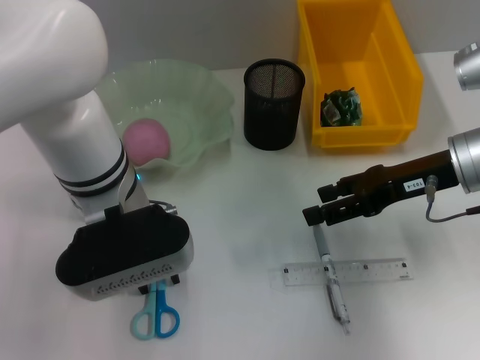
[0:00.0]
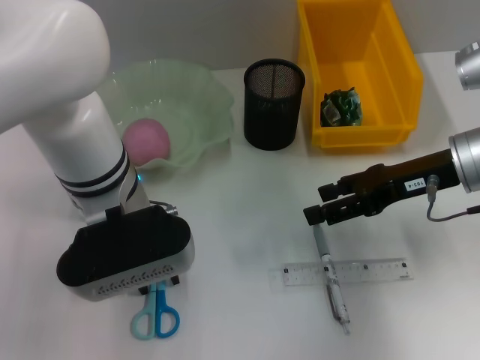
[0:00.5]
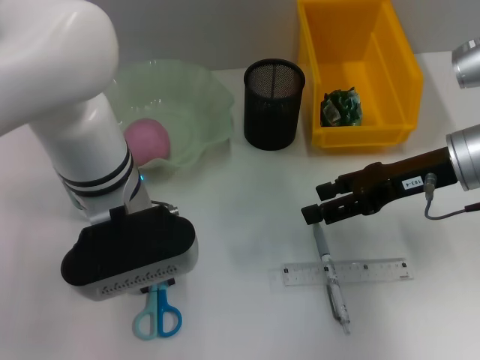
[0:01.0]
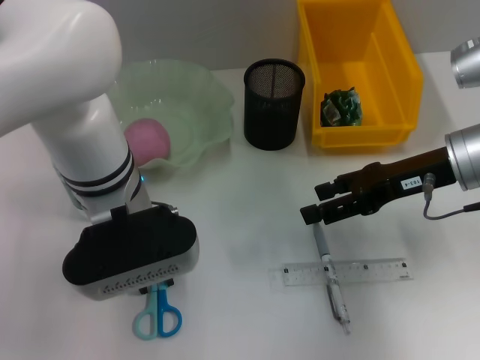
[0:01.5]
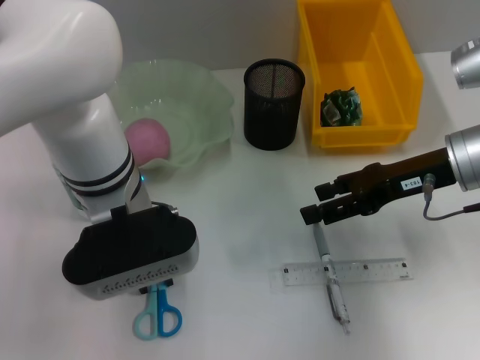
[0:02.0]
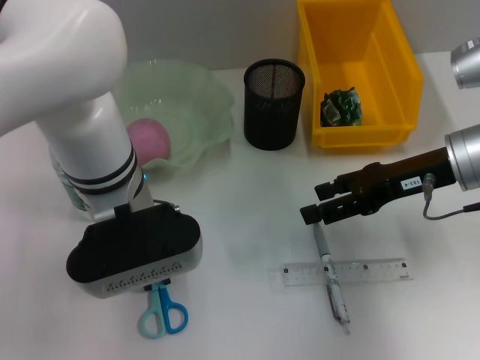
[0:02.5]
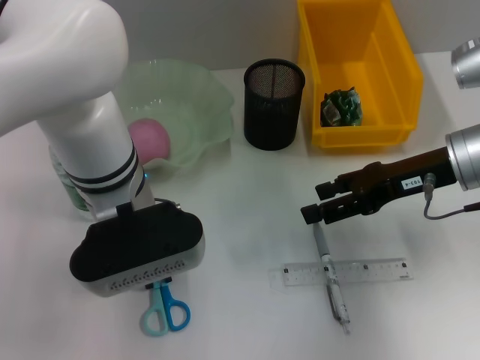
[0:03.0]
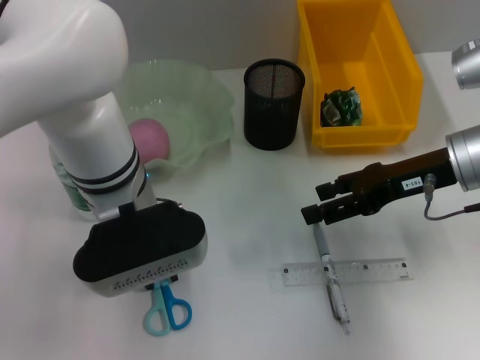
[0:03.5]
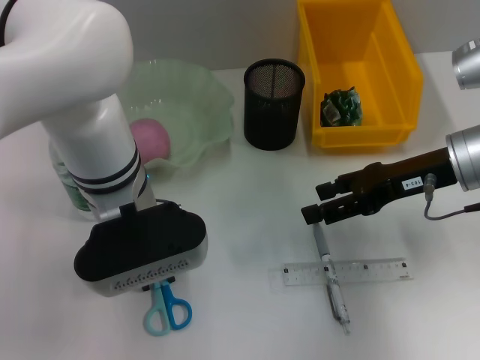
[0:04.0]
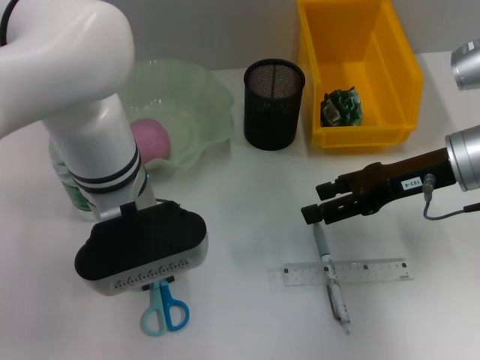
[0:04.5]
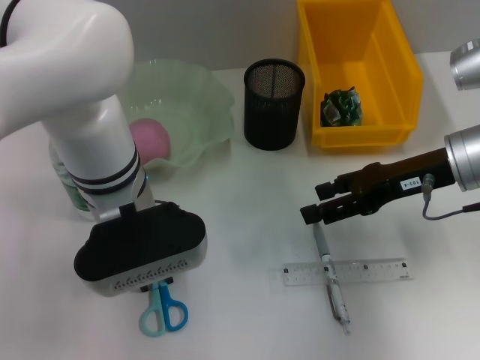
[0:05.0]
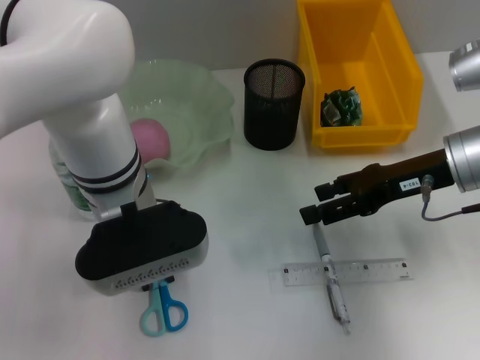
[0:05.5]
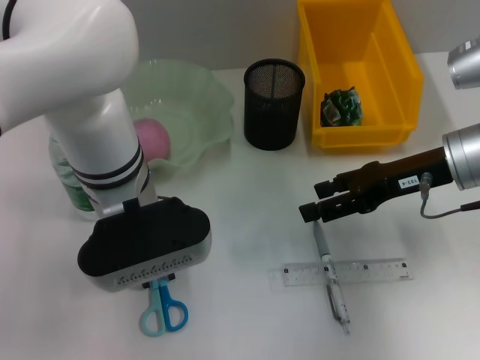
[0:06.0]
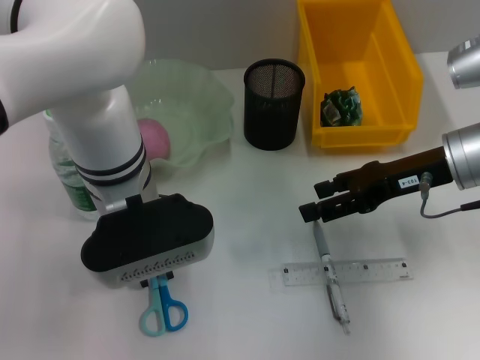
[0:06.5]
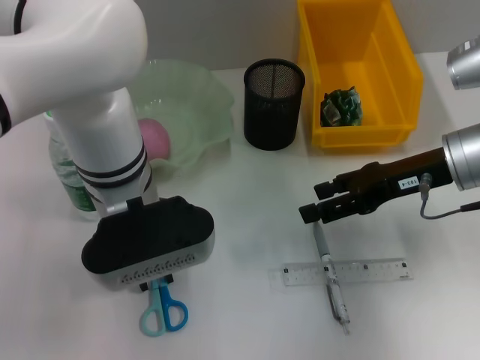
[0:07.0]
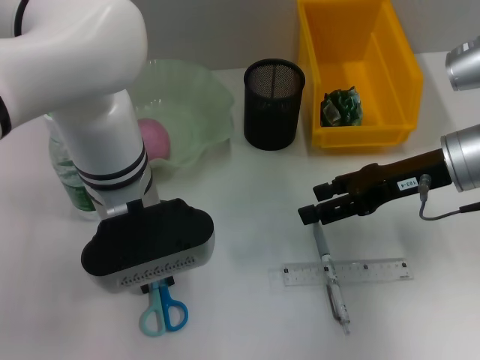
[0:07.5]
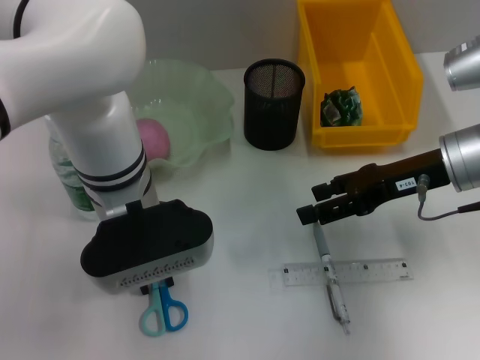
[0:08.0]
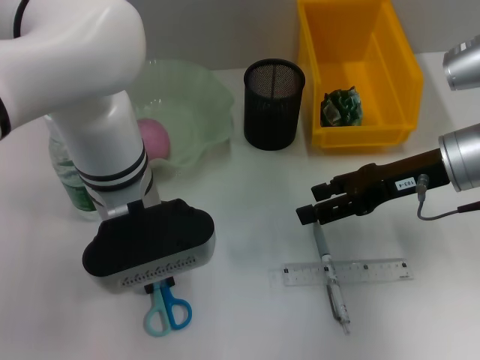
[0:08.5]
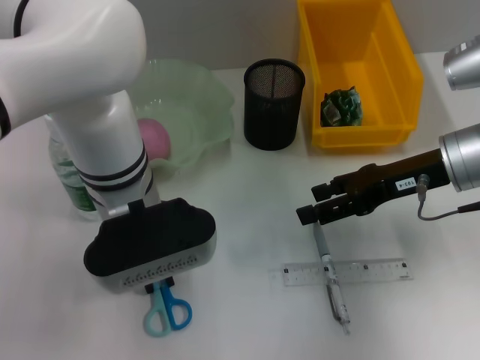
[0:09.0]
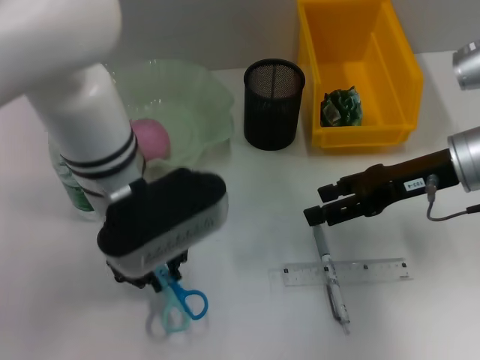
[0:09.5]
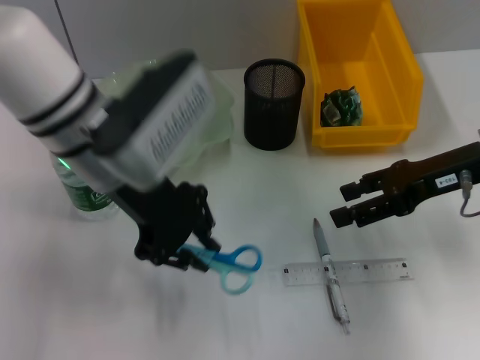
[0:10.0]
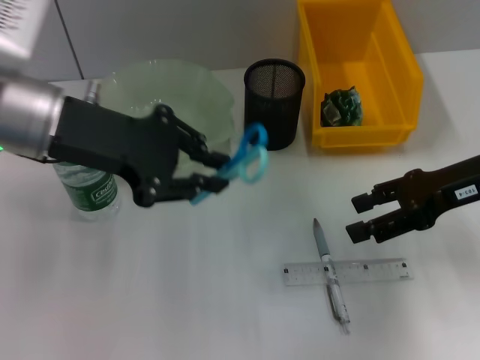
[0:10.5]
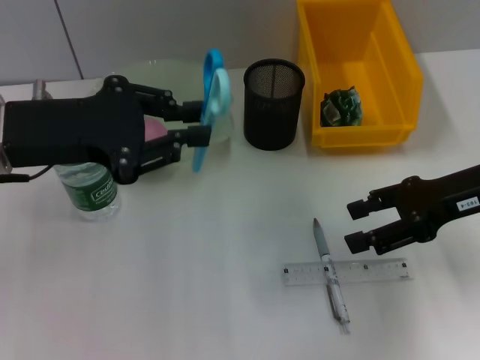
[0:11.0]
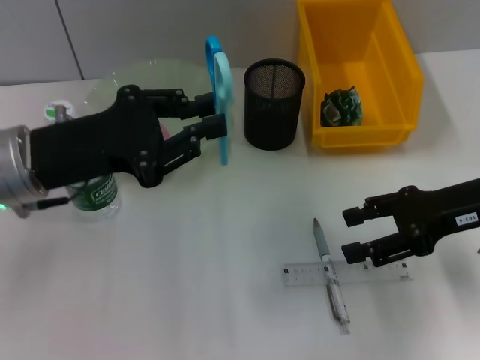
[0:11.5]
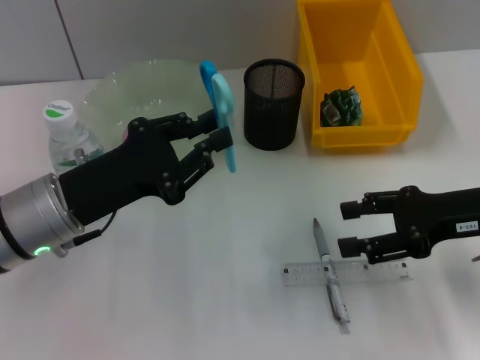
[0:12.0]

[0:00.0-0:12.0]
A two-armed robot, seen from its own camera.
Step, 0:00.0 to 0:08.5: Grab the blue scissors with the left hand.
0:00.0 to 0:06.0: The two grippers keep their place.
0:06.0 to 0:08.0: The two grippers keep their place.
0:08.0 to 0:10.0: The left gripper moves upward, roughly 5 cm.
0:10.0 to 0:12.0: The left gripper shifts roughly 15 cm downward, to the left and backward; the right gripper changes place by approximately 5 cm.

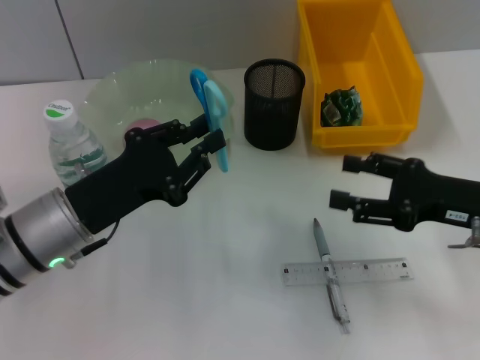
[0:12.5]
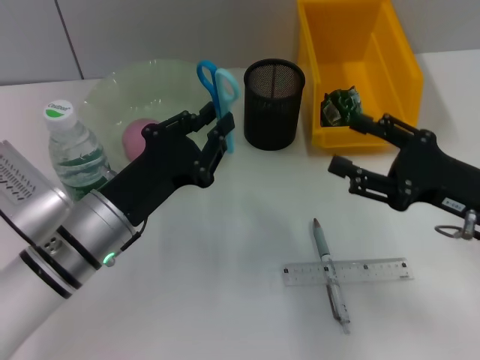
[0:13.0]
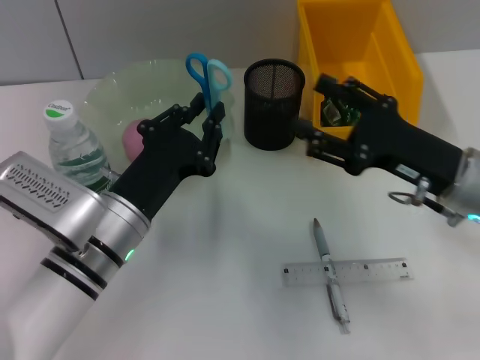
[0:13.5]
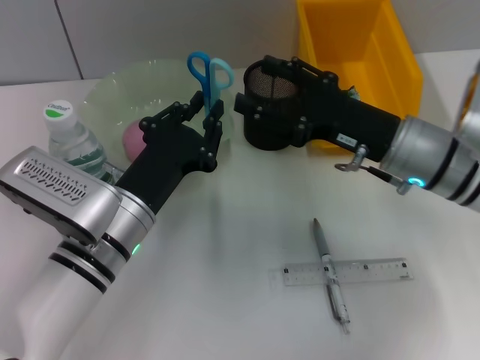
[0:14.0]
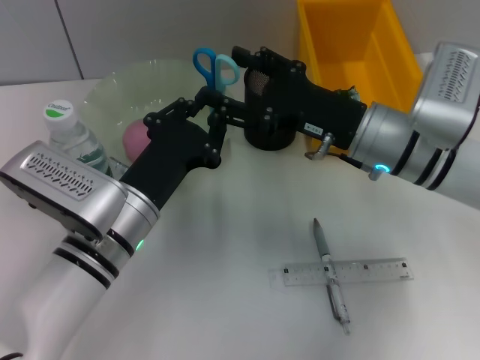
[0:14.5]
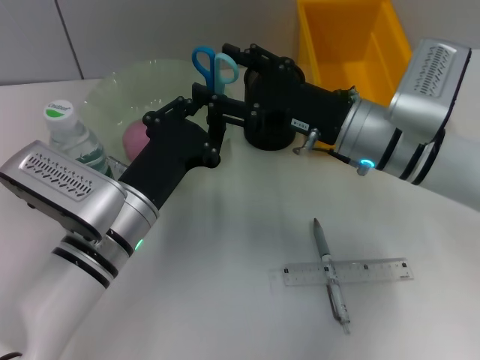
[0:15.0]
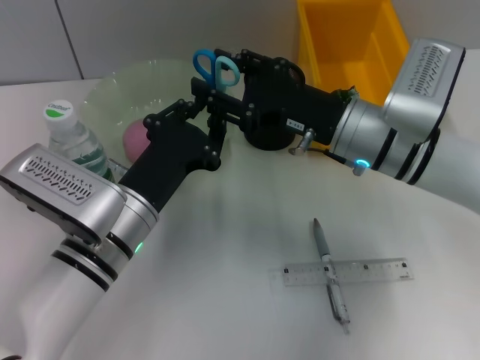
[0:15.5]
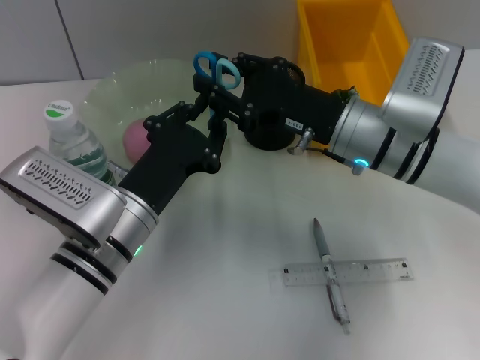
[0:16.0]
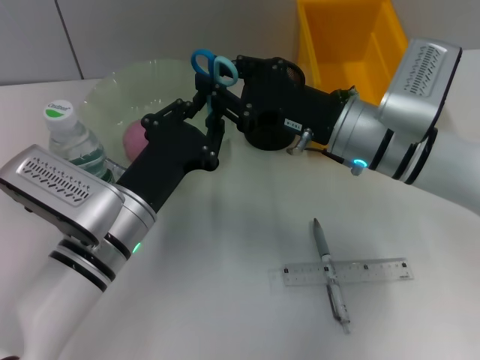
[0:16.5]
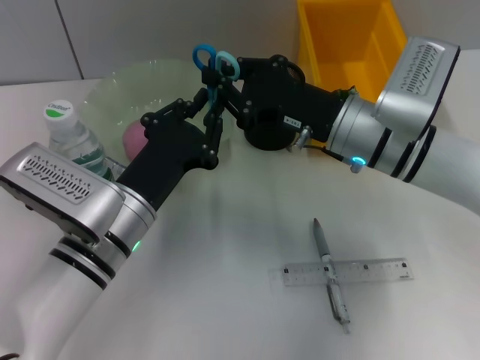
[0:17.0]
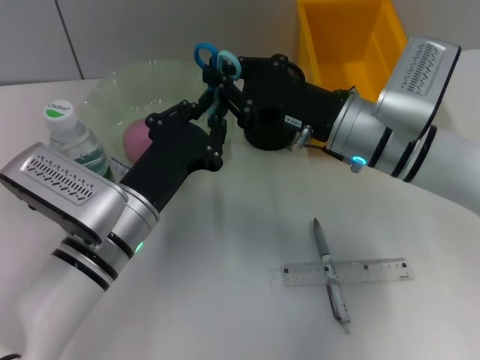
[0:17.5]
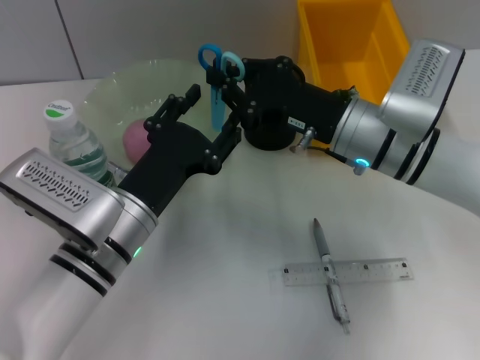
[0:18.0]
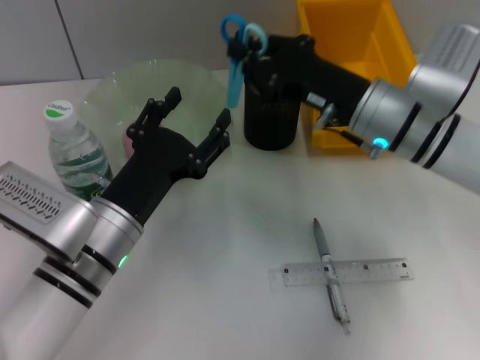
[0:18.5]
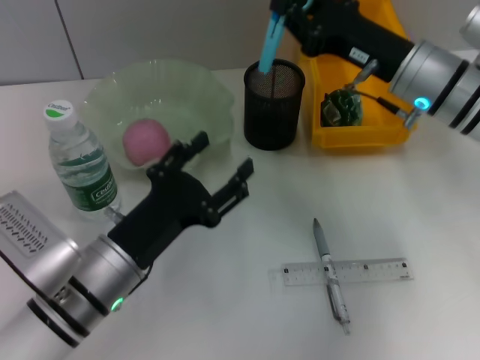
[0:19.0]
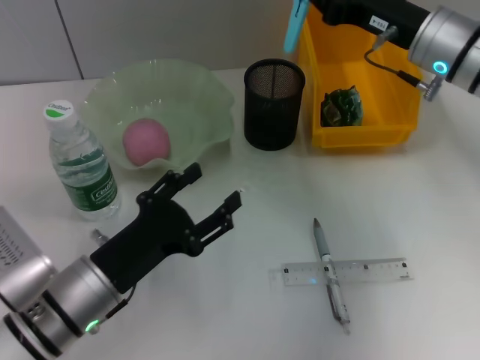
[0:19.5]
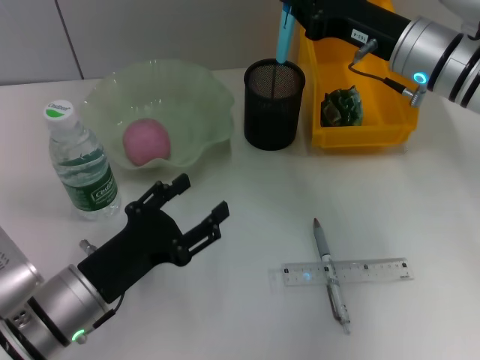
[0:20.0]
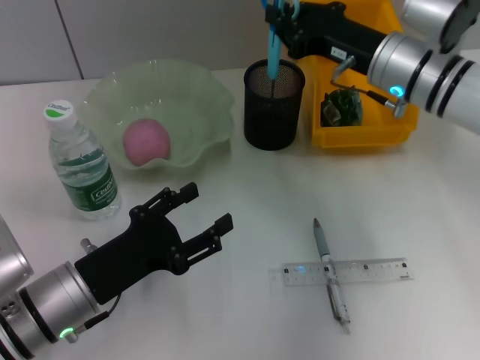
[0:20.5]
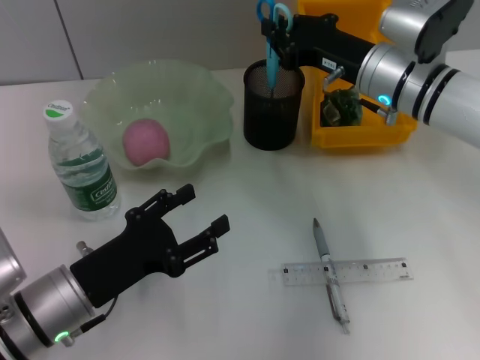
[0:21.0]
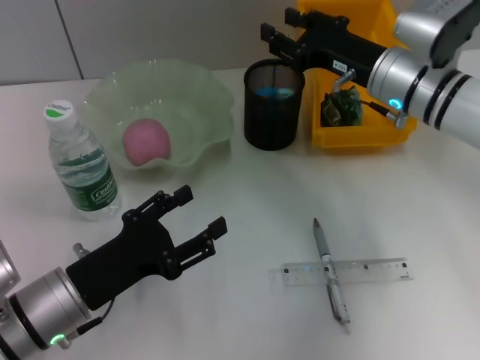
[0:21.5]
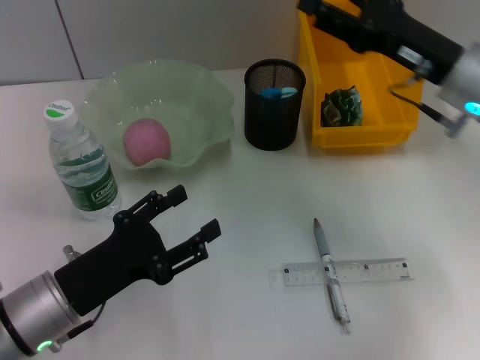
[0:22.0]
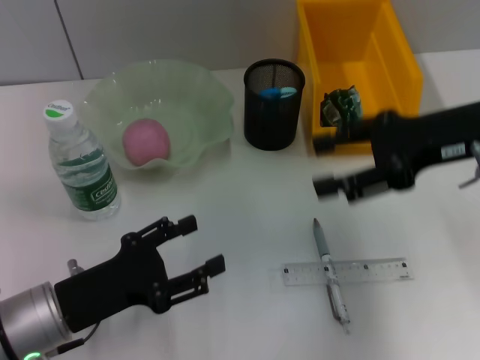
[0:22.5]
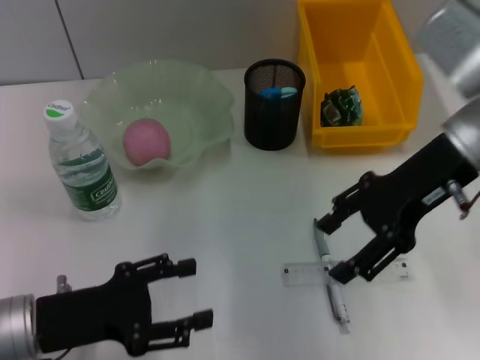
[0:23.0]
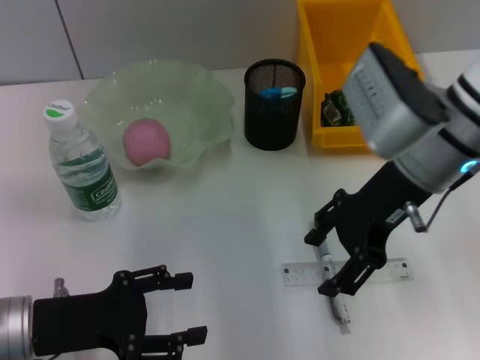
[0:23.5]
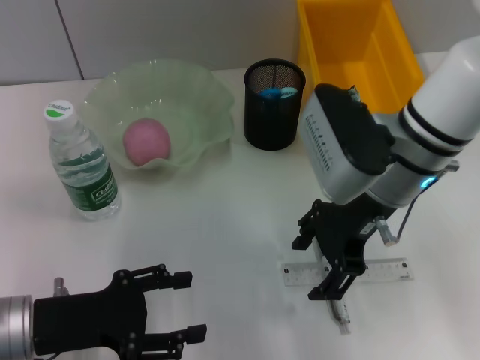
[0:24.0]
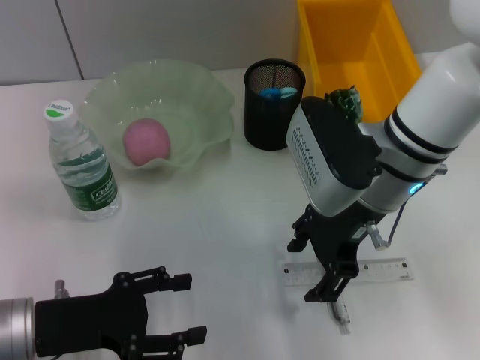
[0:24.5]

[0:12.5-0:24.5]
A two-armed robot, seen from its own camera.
Step, 0:12.5 to 0:17.5: Pass the blue scissors from the left hand to the right hand.
Step, 0:18.0 to 0:22.0: Place the blue scissors into the pen holder with the right hand.
0:12.5 to 0:14.5: The right gripper heads to the left and forward, covering about 15 cm, while the left gripper shifts roughly 5 cm to the right.
0:14.5 to 0:16.5: The right gripper closes its fingers.
0:16.5 to 0:18.5: The right gripper closes; the left gripper opens up.
0:18.5 to 0:20.5: The right gripper ends up roughly 5 cm from where it was. Meanwhile the left gripper heads to the left, covering about 5 cm.
0:20.5 to 0:22.5: The right gripper travels backward, to the right and upward by approximately 10 cm, and opens its fingers.
0:22.5 to 0:24.5: The right gripper travels to the left by roughly 15 cm.

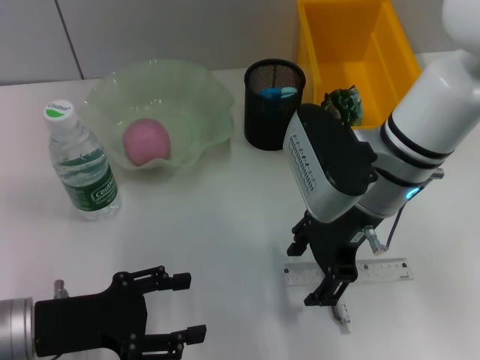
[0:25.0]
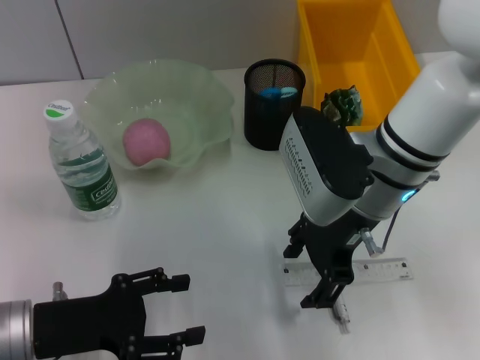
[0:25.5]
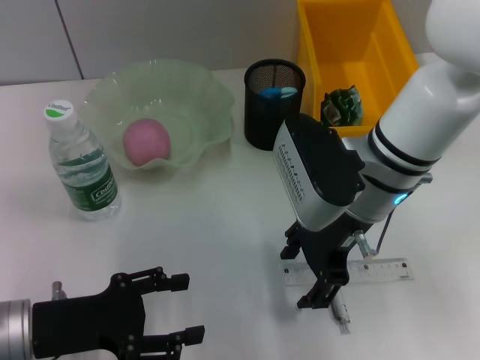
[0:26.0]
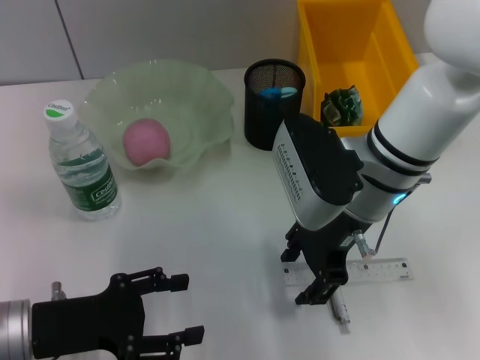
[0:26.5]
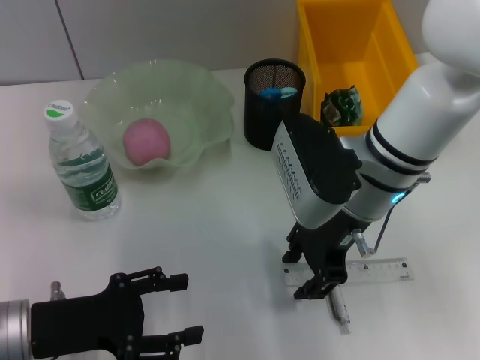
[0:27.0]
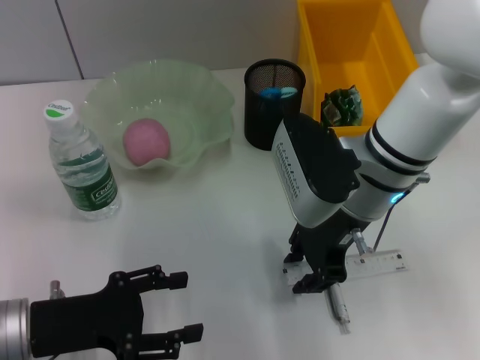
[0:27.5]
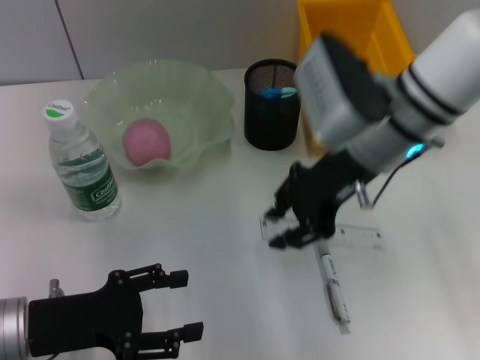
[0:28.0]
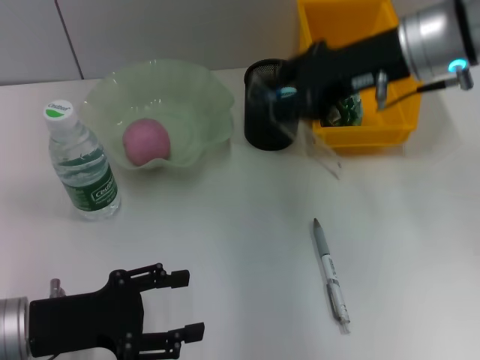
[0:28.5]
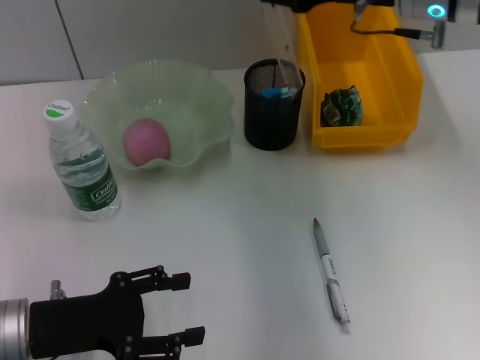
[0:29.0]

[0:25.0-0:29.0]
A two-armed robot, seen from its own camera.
Step, 0:25.0 to 0:27.0: Grab the ruler with the right hand.
0:25.0 to 0:27.0: The two grippers keep their place.
0:27.0 to 0:29.0: The right gripper shifts approximately 15 cm upward, forward and to the right.
